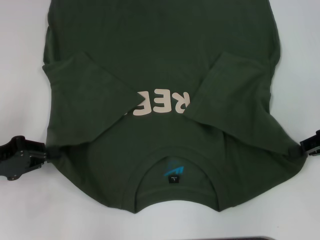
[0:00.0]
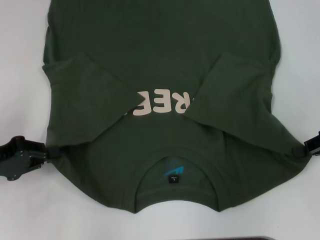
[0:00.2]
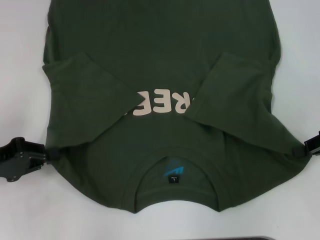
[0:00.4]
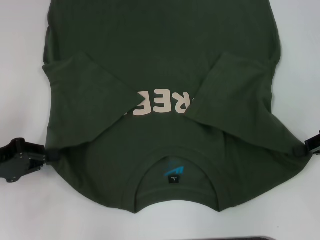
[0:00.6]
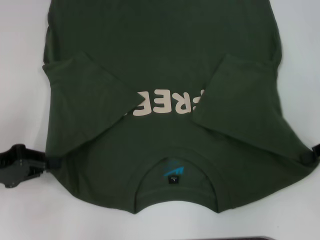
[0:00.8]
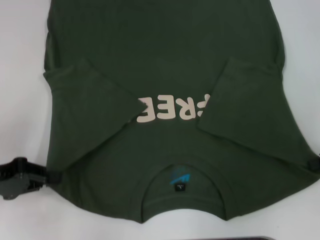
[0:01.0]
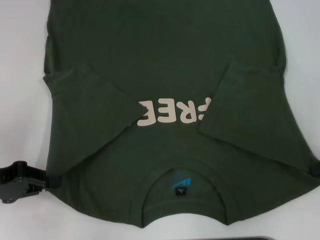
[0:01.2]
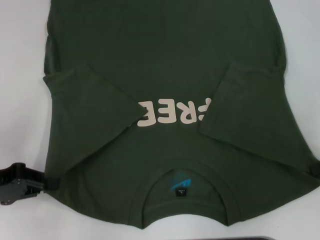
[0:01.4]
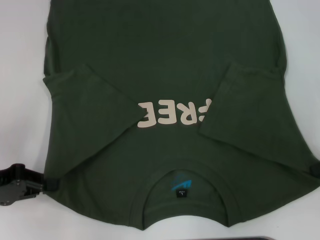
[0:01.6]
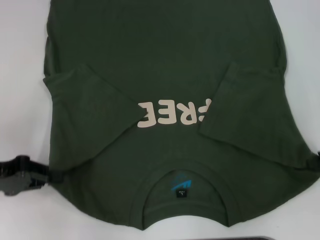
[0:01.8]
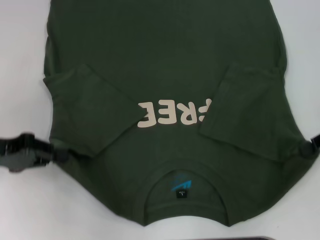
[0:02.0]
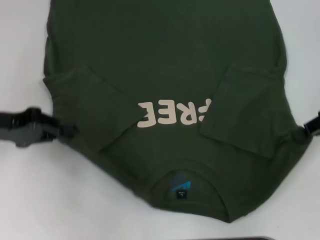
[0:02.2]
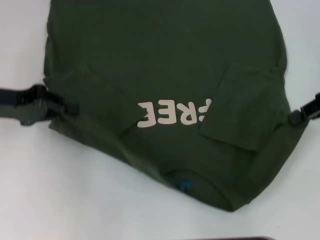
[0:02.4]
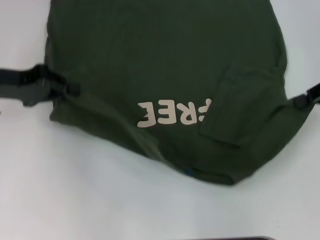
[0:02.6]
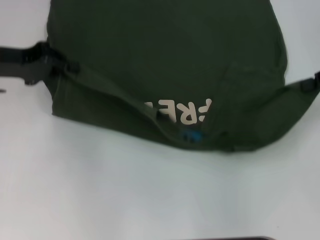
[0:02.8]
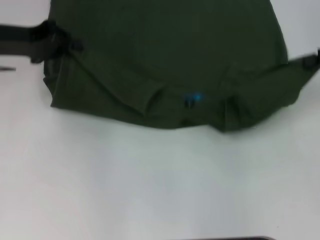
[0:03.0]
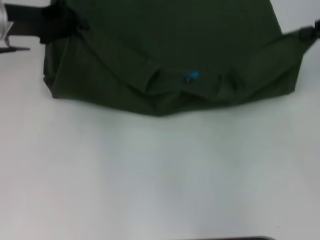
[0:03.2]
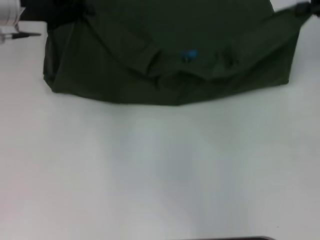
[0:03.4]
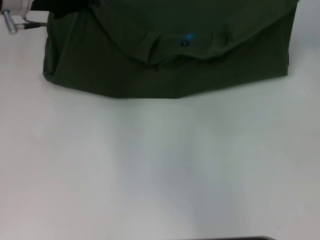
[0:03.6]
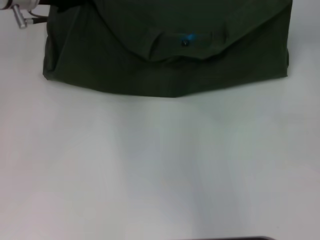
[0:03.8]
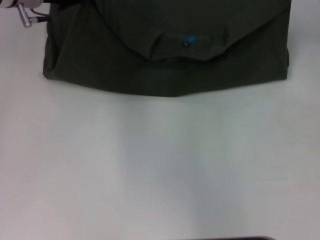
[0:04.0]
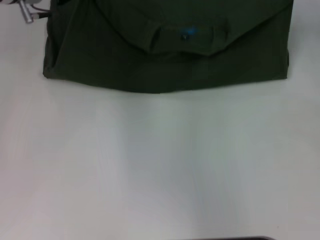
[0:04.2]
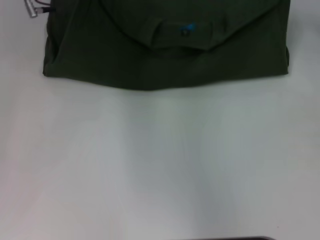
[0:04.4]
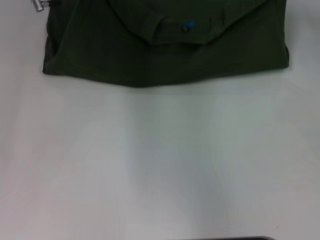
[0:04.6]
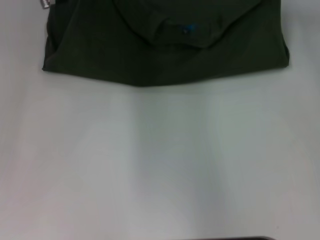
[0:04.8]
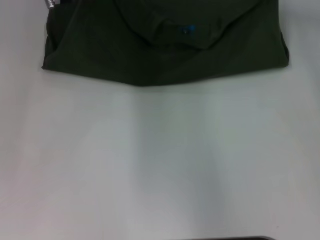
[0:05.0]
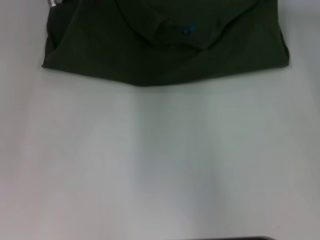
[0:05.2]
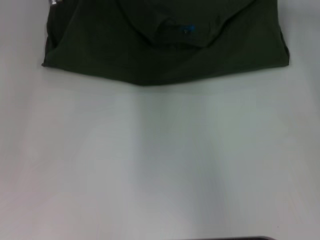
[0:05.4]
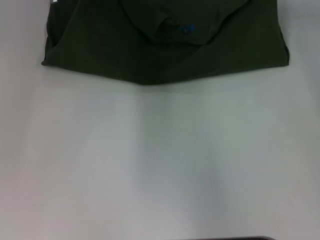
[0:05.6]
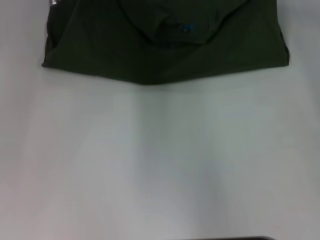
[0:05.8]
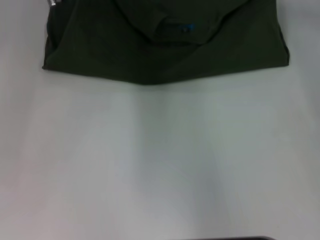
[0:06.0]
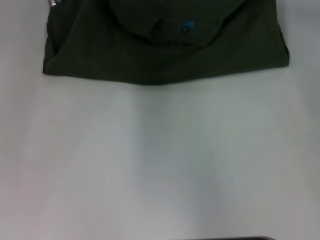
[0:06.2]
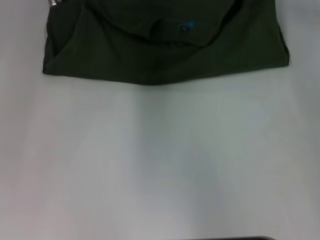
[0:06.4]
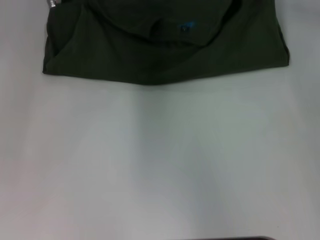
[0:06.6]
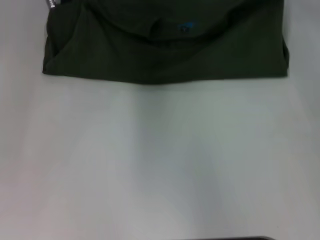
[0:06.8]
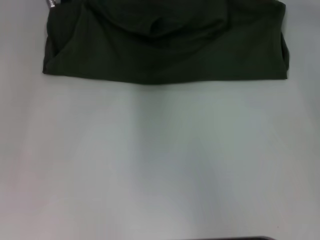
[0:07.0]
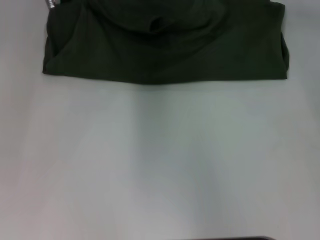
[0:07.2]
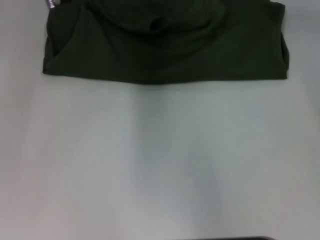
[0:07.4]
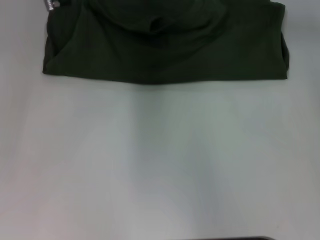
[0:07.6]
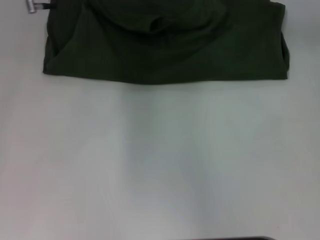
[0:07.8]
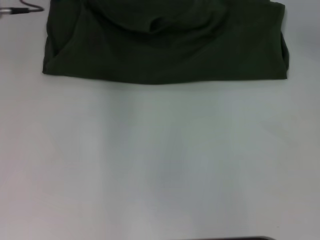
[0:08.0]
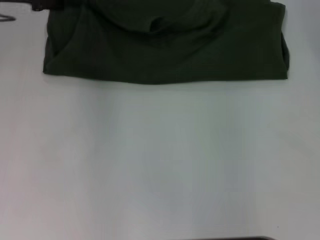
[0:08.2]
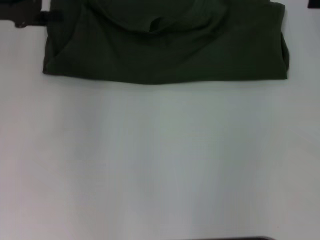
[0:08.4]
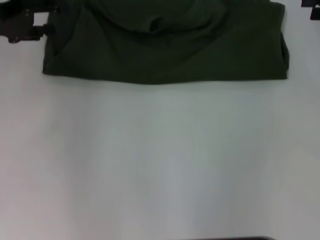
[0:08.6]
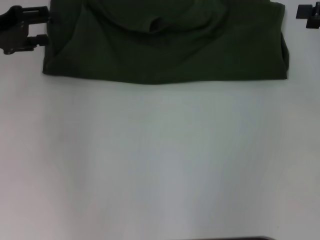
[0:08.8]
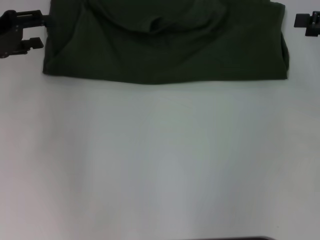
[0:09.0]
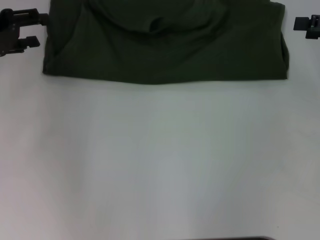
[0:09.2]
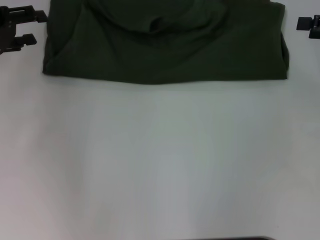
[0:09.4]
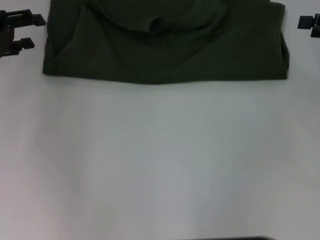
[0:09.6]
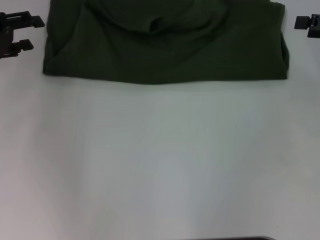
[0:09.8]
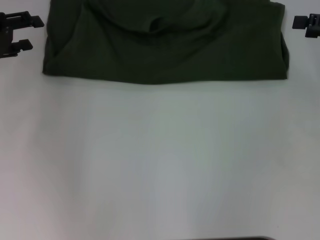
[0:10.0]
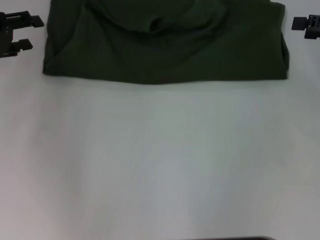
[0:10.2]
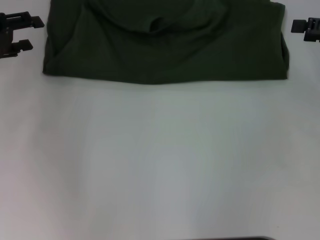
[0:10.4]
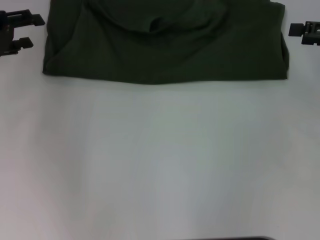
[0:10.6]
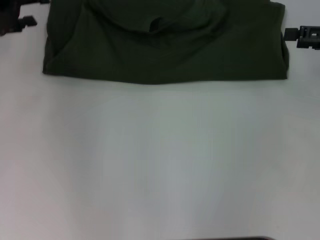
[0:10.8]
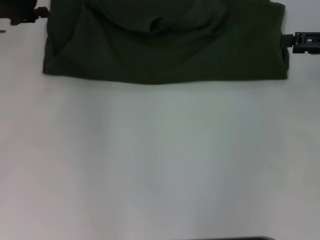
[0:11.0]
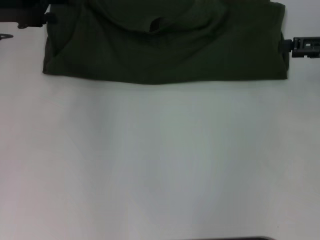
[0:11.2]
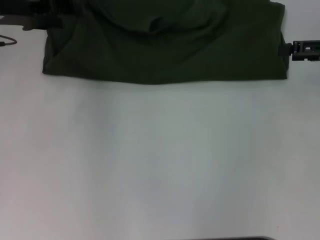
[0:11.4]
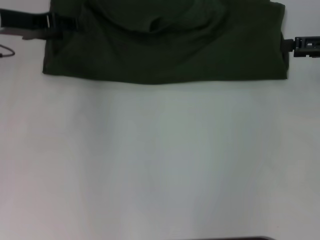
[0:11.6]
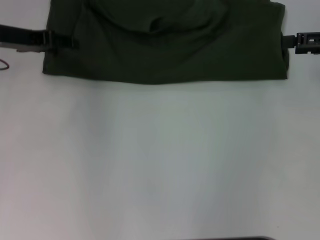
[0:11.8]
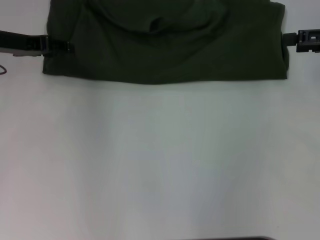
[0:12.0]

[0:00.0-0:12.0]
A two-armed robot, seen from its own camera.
Step, 0:00.4 to 0:07.6: Fold the clothes with your left hand.
Step, 0:00.4 to 0:07.6: Fold the clothes with your right hand.
0:00.0 to 0:01.6: The grippers stay close to where they were, moving slightly.
0:01.6 to 0:03.0: The right gripper goes approximately 10 cm upward and forward, while the left gripper travels forward and upward by roughly 20 cm.
0:03.0 to 0:04.4: The right gripper goes some 10 cm forward. Meanwhile the left gripper goes approximately 10 cm to the right and forward.
0:04.4 to 0:06.0: The right gripper heads to the left, covering about 5 cm.
0:06.0 to 0:07.6: The right gripper opens; the left gripper opens.
0:07.6 to 0:09.0: The left gripper is displaced to the left and backward by approximately 20 cm. The right gripper shifts about 15 cm backward and to the right, and opens.
0:09.0 to 0:10.4: There are only small adjustments of the grippers.
0:10.4 to 0:12.0: The left gripper shifts roughly 5 cm to the right.

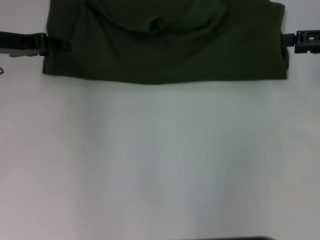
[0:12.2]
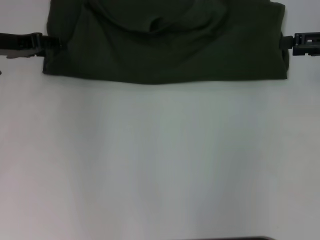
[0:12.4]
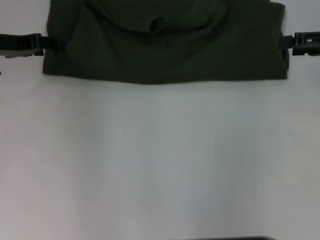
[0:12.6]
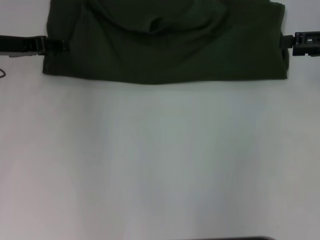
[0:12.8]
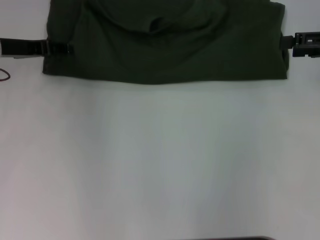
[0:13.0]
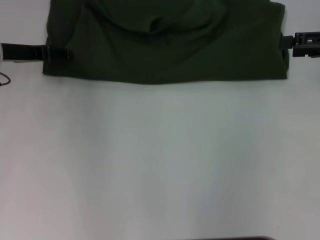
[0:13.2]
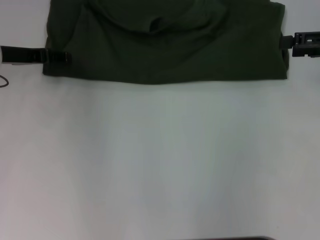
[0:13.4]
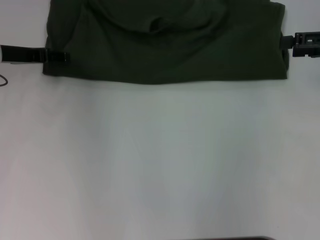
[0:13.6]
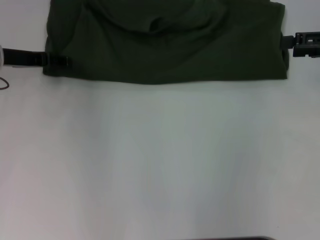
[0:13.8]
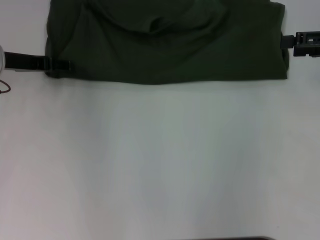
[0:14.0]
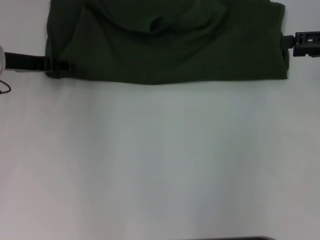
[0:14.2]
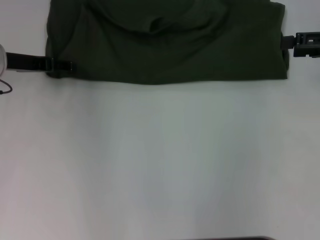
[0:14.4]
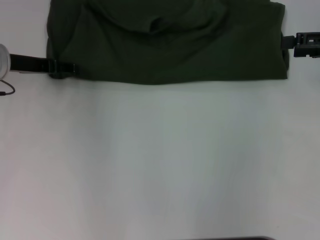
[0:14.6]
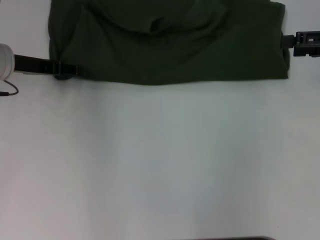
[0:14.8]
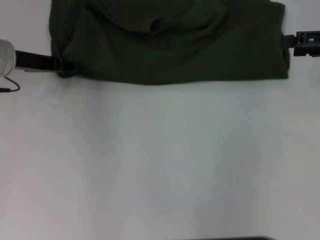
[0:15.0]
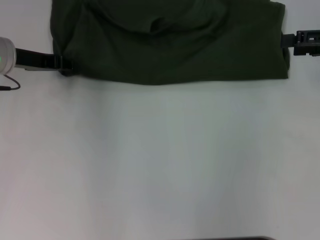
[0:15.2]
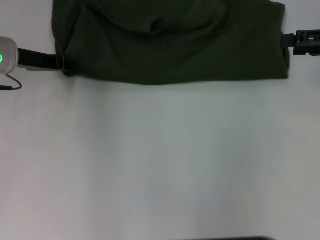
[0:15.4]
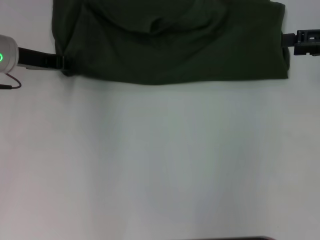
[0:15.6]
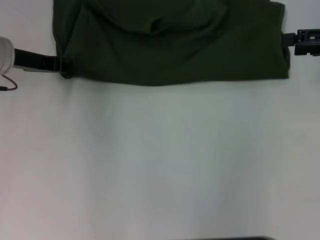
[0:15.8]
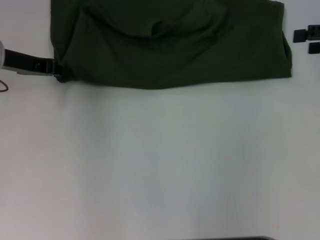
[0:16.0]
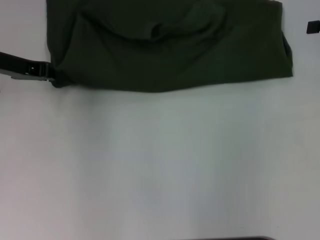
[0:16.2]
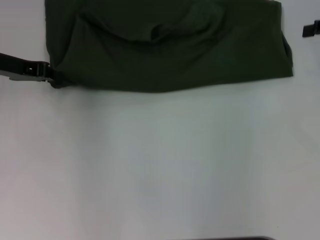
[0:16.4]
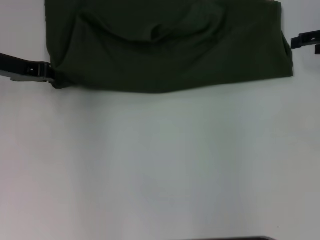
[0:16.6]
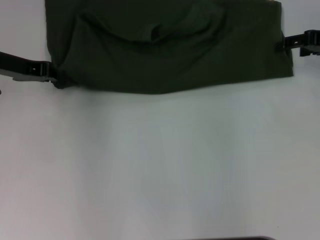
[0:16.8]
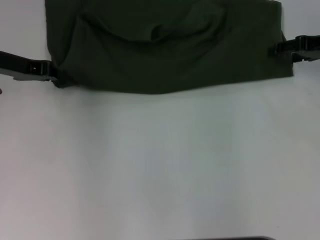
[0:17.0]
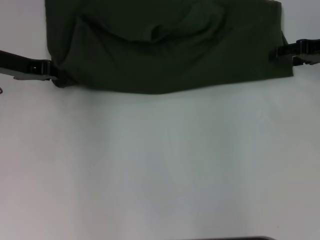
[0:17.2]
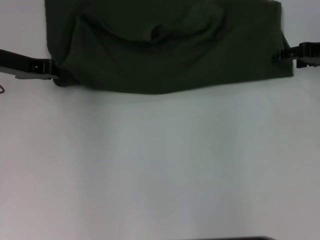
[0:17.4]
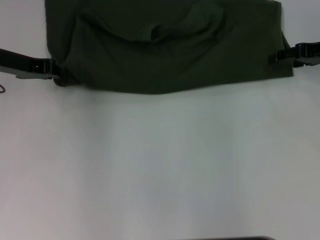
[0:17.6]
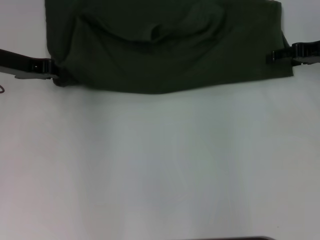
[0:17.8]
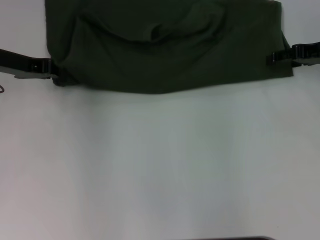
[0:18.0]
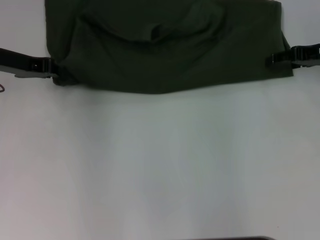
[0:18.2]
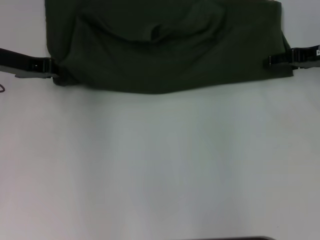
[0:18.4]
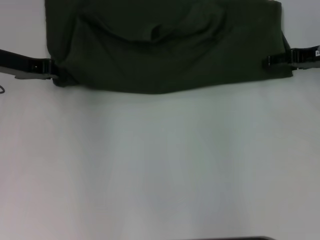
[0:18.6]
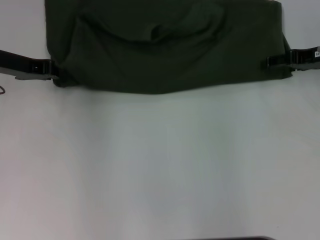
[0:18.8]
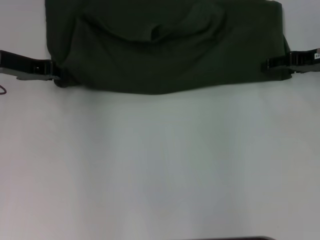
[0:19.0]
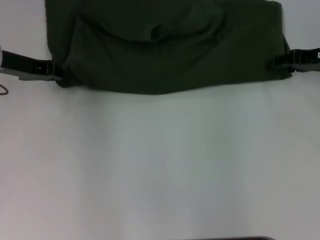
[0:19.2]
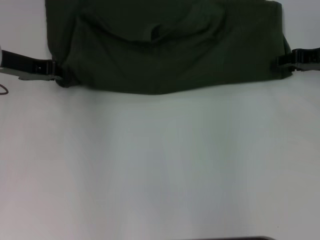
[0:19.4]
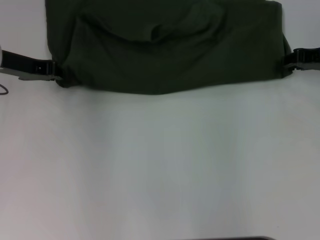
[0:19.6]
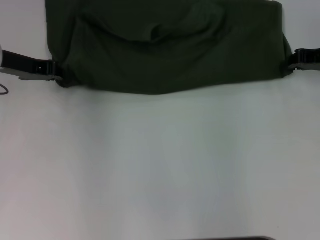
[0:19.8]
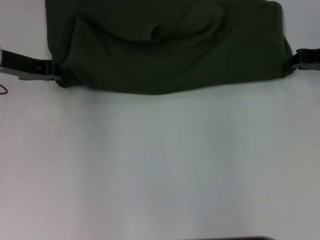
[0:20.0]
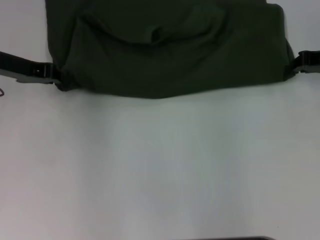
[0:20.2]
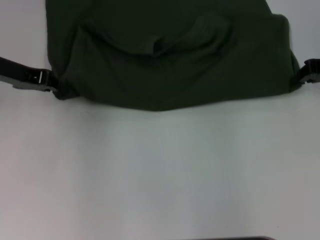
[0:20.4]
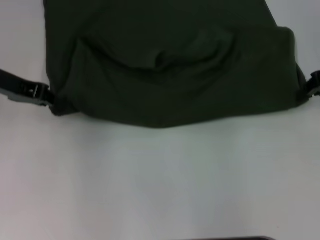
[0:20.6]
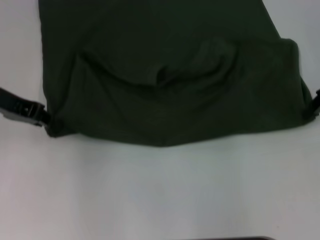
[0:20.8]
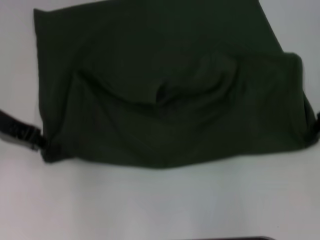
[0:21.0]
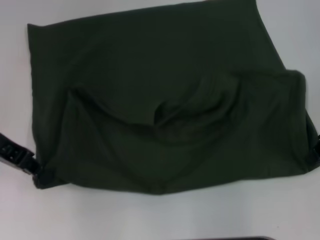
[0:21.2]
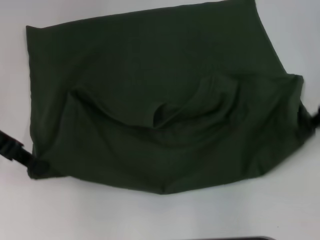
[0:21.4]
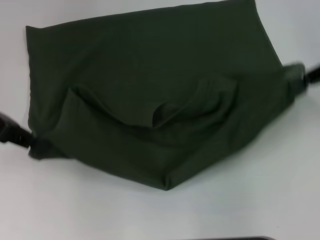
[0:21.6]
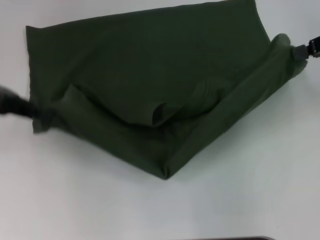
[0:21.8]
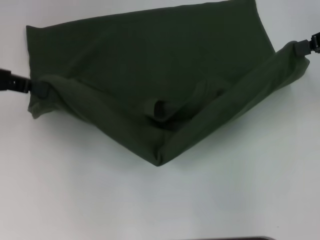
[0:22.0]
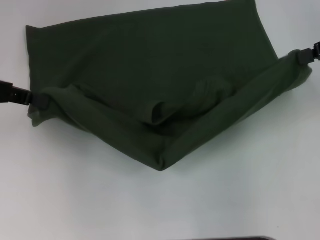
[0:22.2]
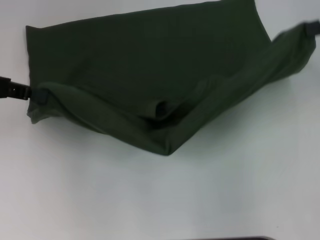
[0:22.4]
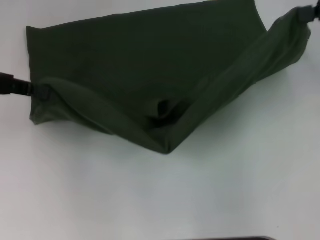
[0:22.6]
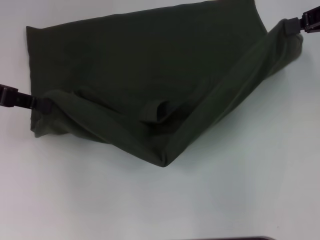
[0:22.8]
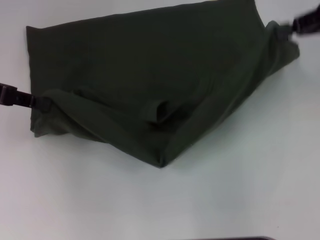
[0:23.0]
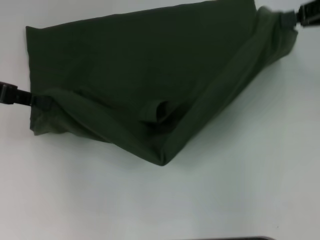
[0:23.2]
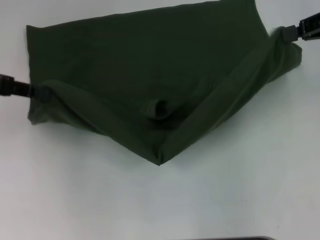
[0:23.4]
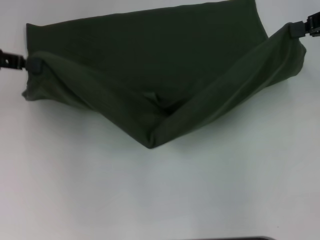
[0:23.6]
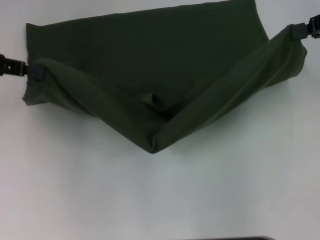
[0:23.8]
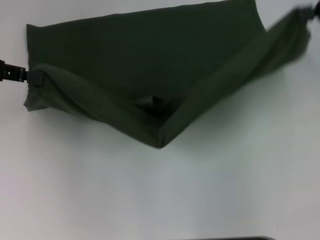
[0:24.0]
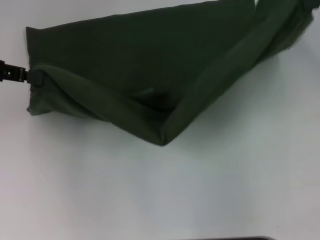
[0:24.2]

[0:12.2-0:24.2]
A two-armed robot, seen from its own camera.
Step, 0:12.2 to 0:21.0: Pull the clothes with your left hand.
Step, 0:12.2 to 0:21.0: Pull the clothes with your right hand.
0:12.2 to 0:15.2: The grippers stay close to where they were, moving slightly.
0:15.2 to 0:16.6: The left gripper closes up.
0:16.6 to 0:18.2: The right gripper shifts by approximately 5 cm.
0:18.2 to 0:19.8: The right gripper closes up.
0:19.8 to 0:21.2: Both grippers travel together backward, about 5 cm.
0:21.2 to 0:22.6: The right gripper heads upward, covering some 10 cm; the left gripper changes place by roughly 5 cm.
0:22.6 to 0:24.2: There are only small adjustments of the grippers.
